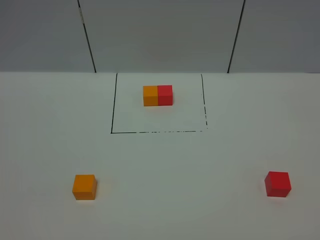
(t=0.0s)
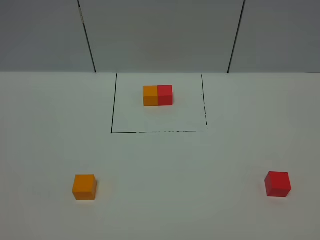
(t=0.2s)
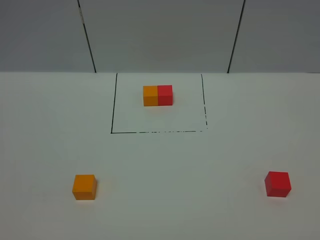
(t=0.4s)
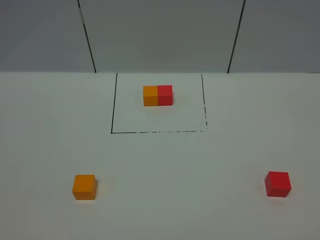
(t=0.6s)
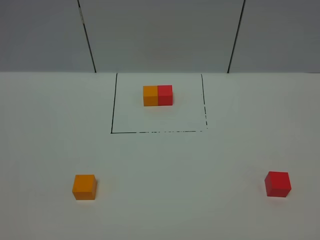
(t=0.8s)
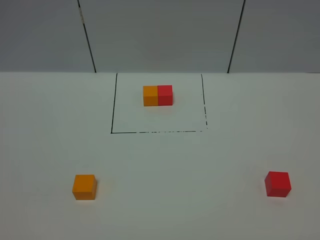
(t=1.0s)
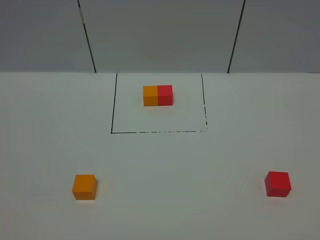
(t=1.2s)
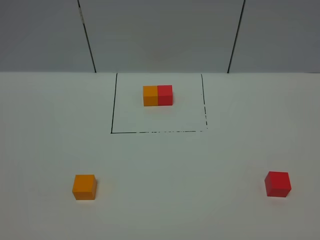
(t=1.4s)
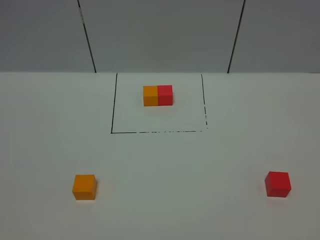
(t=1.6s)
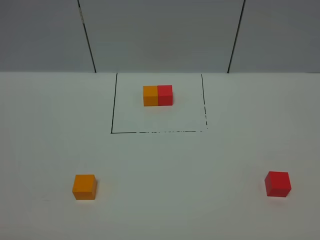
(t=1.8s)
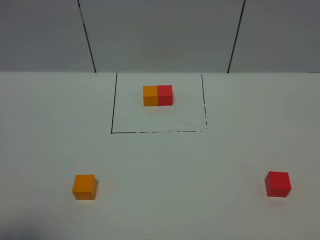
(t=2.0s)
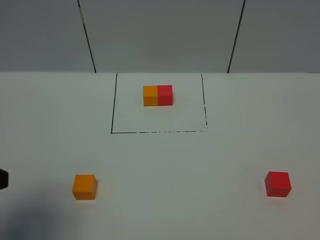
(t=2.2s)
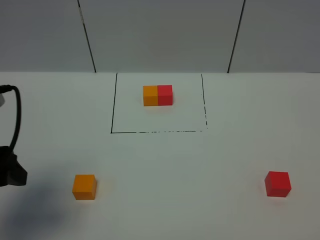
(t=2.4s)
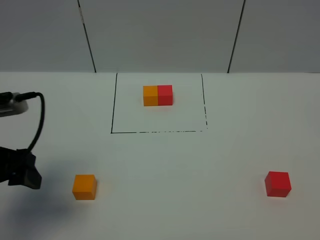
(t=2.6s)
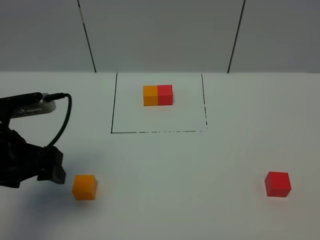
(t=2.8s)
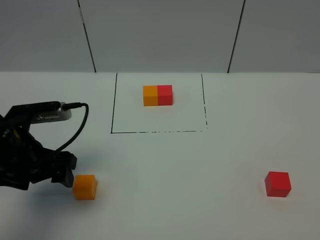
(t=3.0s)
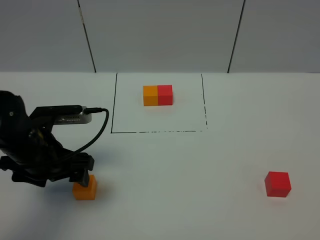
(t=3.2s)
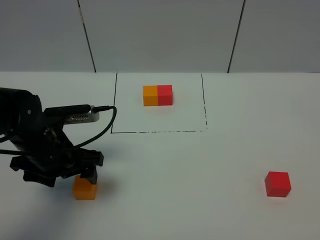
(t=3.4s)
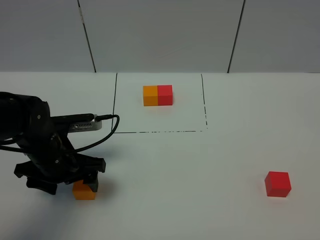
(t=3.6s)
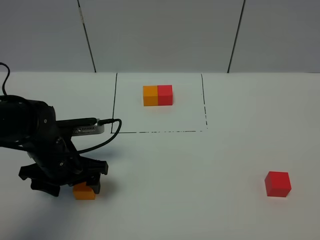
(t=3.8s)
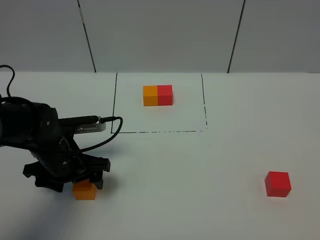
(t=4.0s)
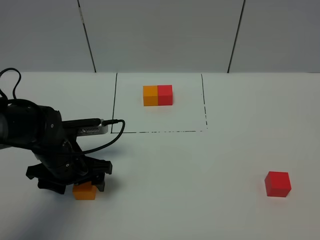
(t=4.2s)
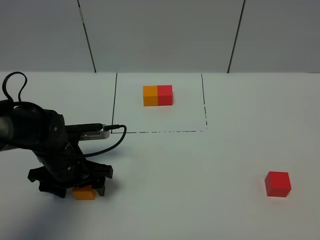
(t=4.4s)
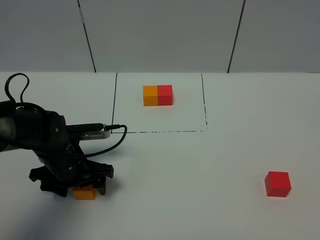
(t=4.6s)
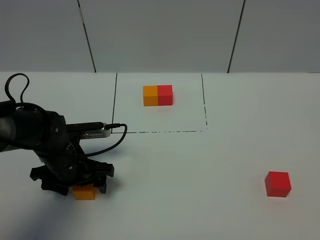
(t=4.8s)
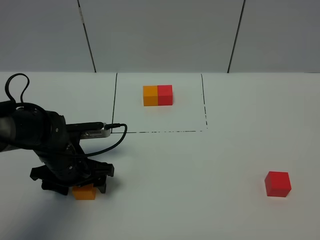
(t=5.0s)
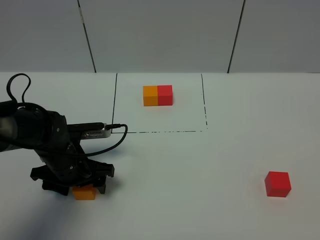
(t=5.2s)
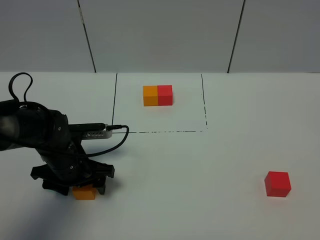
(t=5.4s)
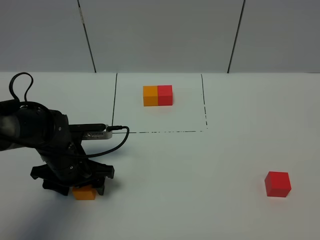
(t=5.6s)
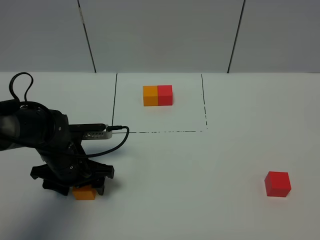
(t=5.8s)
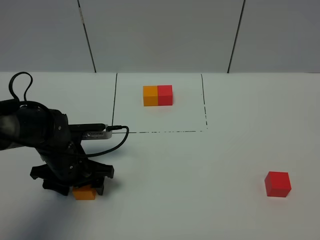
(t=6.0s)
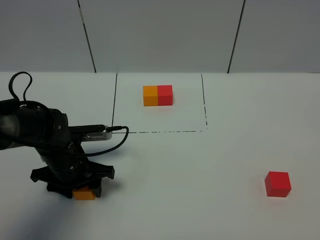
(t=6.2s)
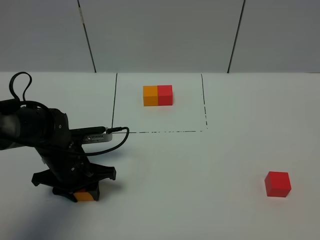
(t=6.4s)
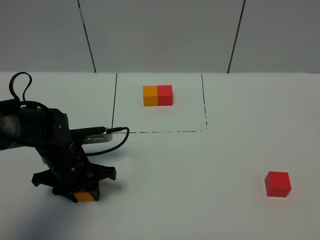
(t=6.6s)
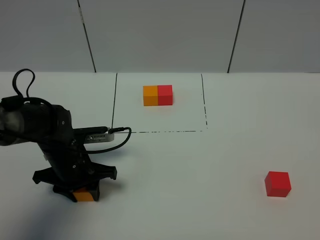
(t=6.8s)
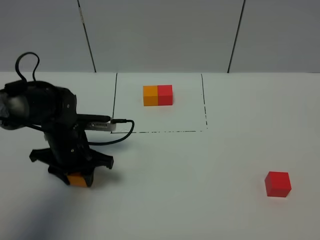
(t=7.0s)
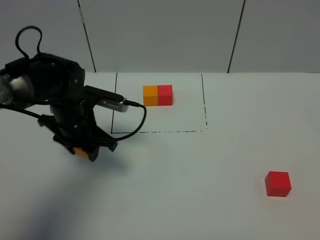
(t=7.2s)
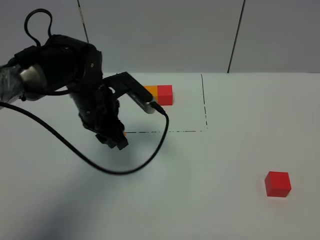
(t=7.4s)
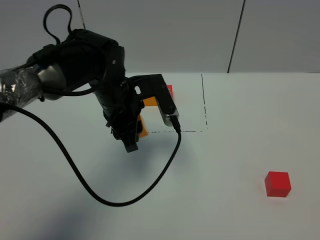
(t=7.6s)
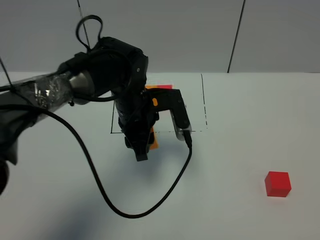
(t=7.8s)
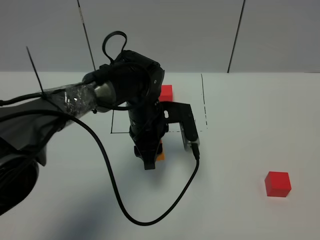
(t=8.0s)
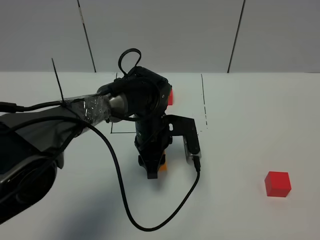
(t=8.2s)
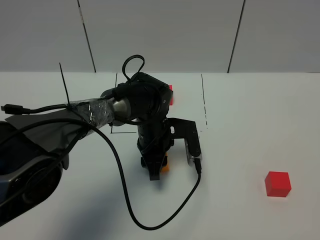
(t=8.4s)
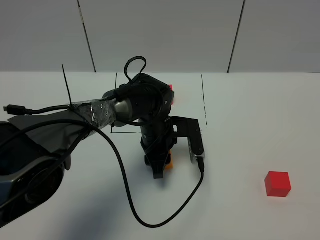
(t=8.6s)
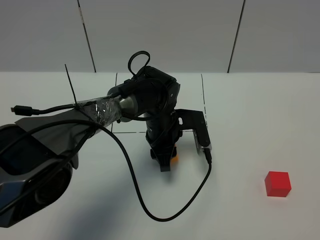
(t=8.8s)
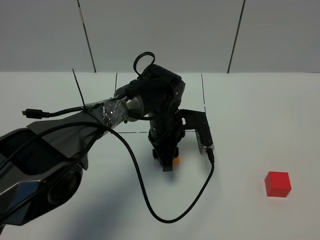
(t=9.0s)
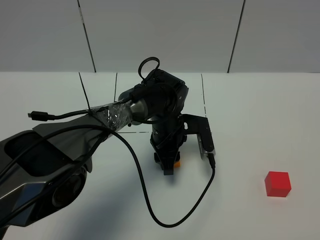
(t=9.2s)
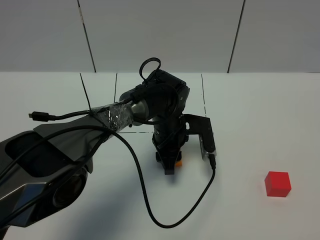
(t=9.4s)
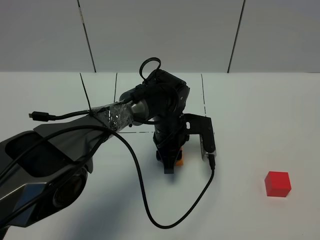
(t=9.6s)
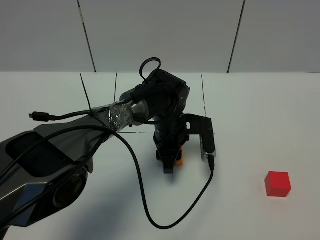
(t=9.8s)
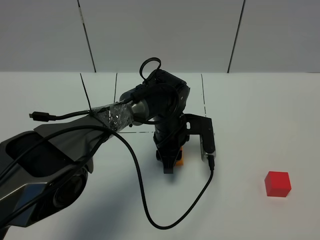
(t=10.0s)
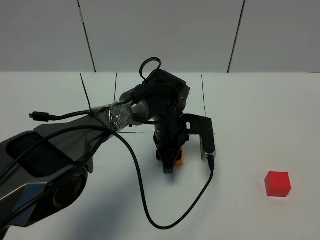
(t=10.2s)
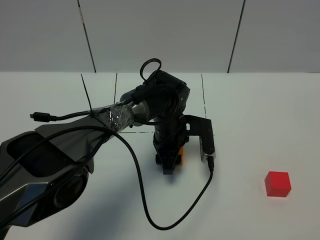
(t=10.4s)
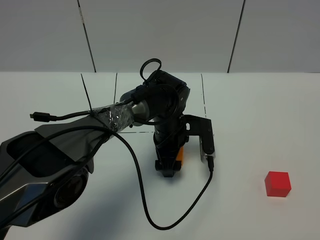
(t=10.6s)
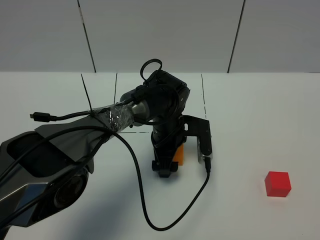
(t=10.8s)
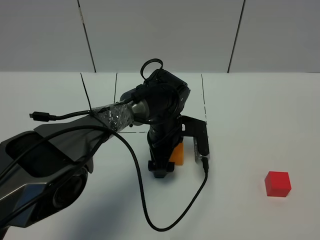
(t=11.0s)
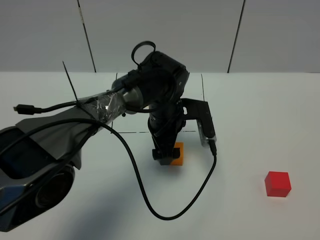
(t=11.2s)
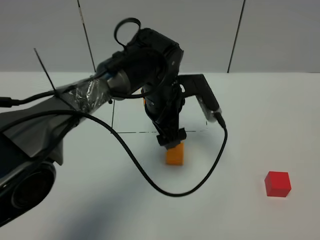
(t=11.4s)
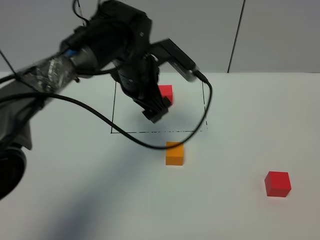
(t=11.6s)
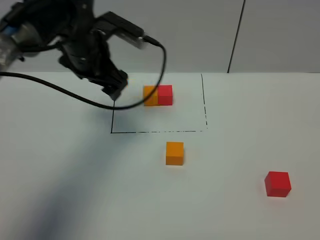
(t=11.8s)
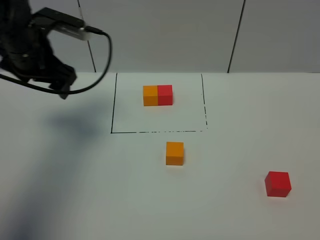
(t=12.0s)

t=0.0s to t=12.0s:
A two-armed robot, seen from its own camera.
Task of the whole recording: According to the building block template in front, assemble the scattered blocks together.
Step, t=2.2s to t=10.4s: Put the orange cube in the center of the table.
t=0.0s to t=1.6s: Neither gripper changes place.
t=1.6s to t=3.0s: The left gripper shifts roughly 25 cm forward.
t=3.0s to t=4.4s: The left gripper heads downward, covering some 10 cm.
t=4.4s to t=6.0s: Both grippers stay put.
t=6.0s to t=7.6s: The left gripper travels to the right, upward and forward by roughly 15 cm, and closes up.
t=7.6s to t=9.0s: The left gripper is displaced downward and to the right by about 15 cm.
t=9.0s to t=10.4s: The grippers move only a little.
t=10.4s to t=12.0s: The left gripper shifts roughly 30 cm to the left and upward, and opens its fingers.

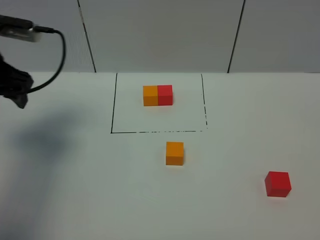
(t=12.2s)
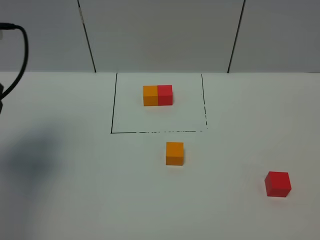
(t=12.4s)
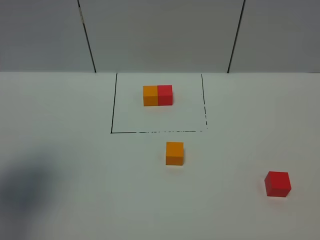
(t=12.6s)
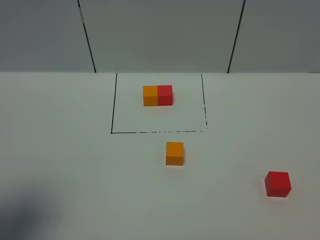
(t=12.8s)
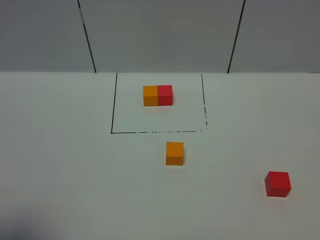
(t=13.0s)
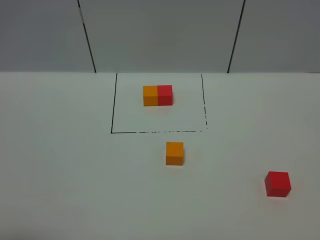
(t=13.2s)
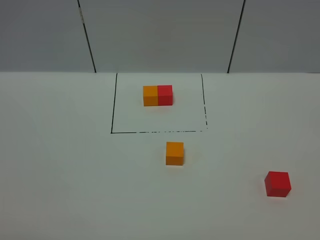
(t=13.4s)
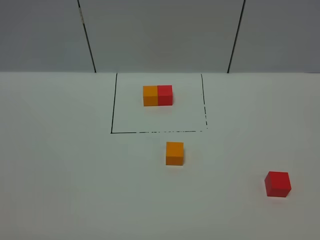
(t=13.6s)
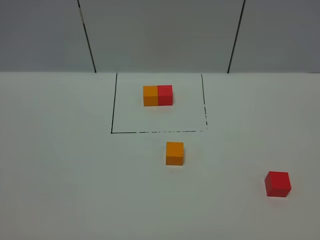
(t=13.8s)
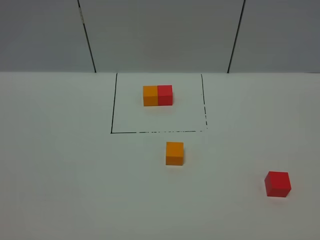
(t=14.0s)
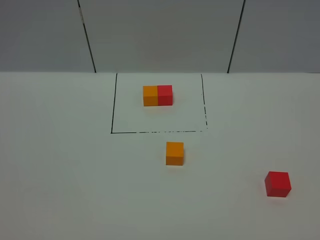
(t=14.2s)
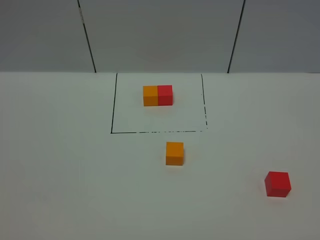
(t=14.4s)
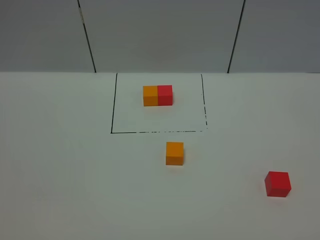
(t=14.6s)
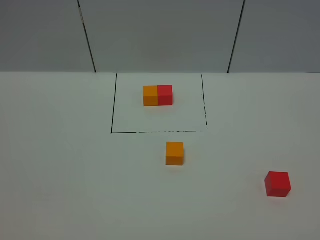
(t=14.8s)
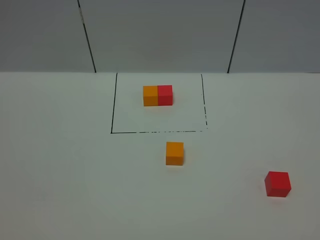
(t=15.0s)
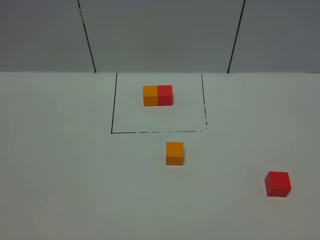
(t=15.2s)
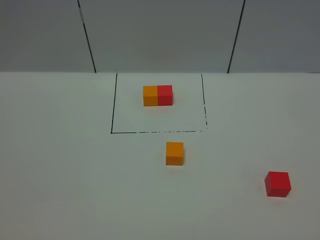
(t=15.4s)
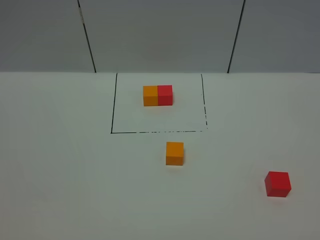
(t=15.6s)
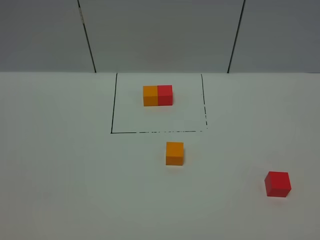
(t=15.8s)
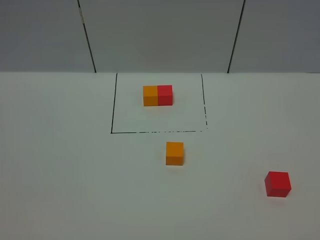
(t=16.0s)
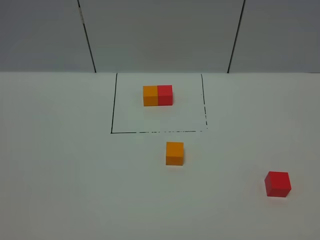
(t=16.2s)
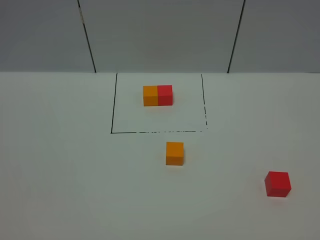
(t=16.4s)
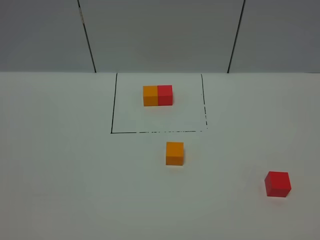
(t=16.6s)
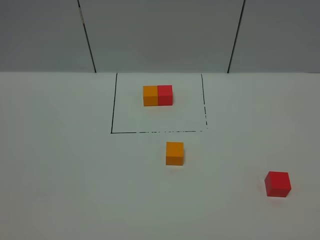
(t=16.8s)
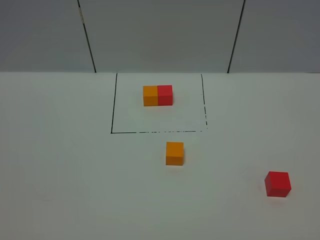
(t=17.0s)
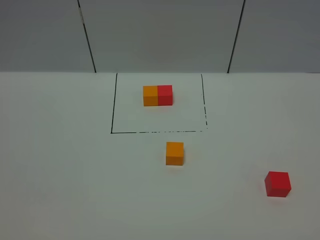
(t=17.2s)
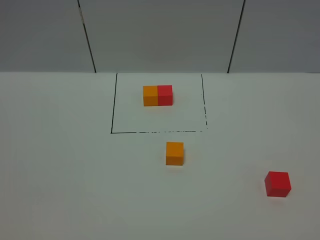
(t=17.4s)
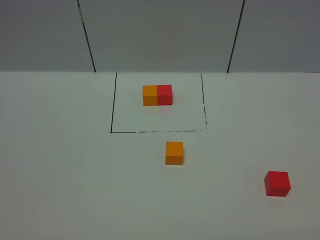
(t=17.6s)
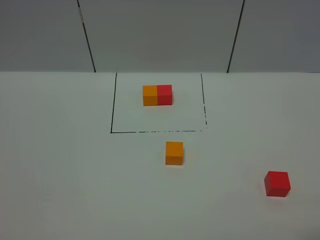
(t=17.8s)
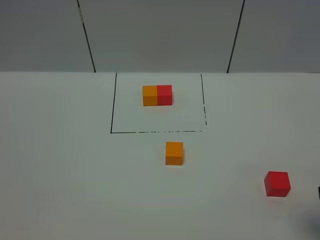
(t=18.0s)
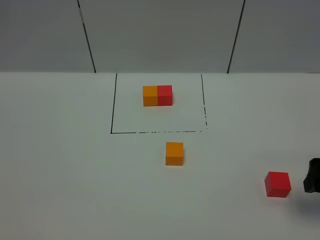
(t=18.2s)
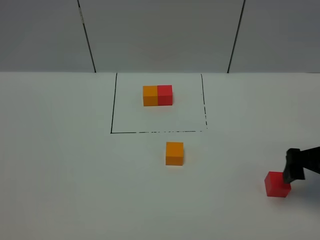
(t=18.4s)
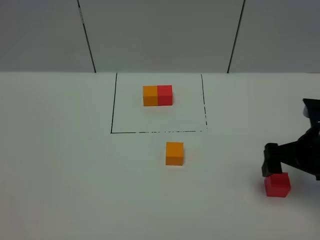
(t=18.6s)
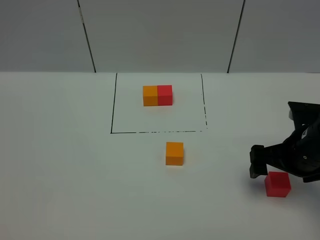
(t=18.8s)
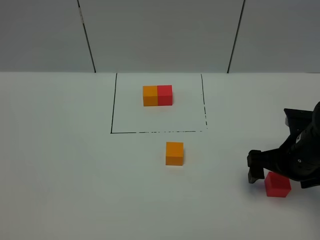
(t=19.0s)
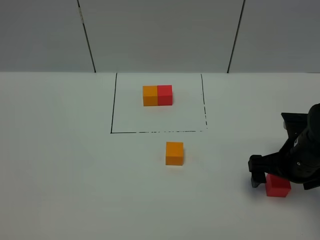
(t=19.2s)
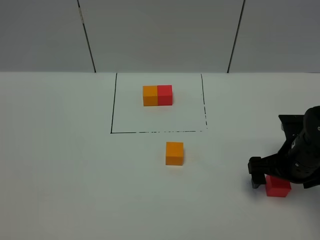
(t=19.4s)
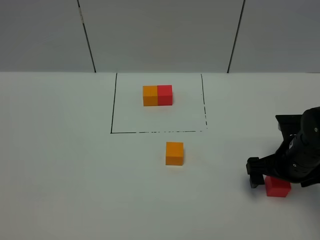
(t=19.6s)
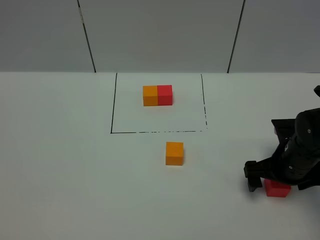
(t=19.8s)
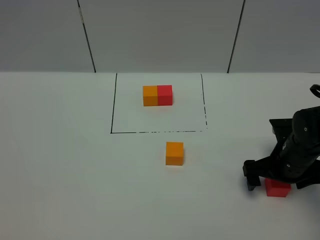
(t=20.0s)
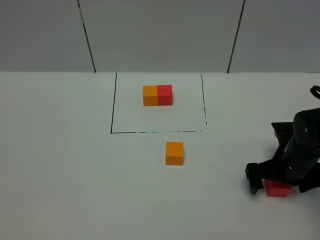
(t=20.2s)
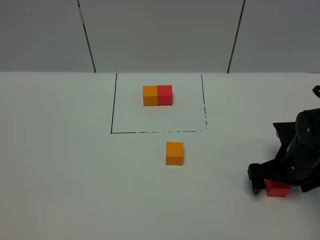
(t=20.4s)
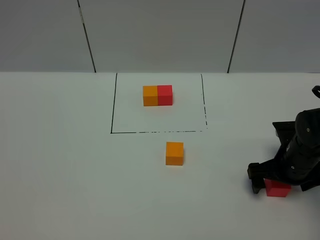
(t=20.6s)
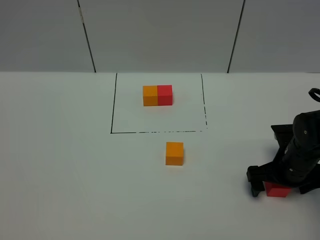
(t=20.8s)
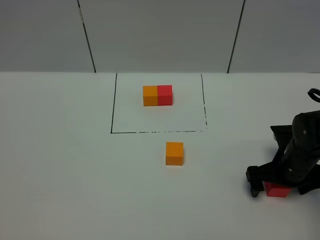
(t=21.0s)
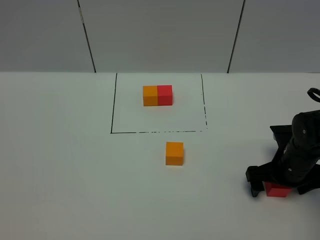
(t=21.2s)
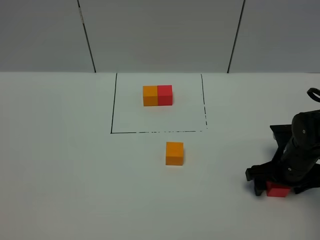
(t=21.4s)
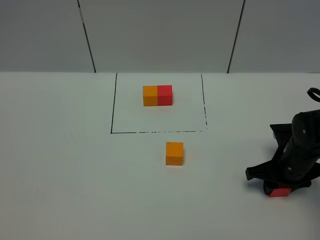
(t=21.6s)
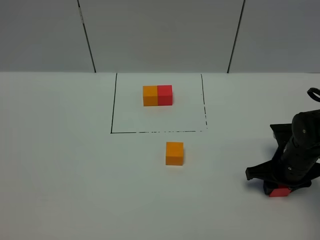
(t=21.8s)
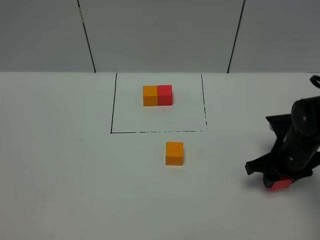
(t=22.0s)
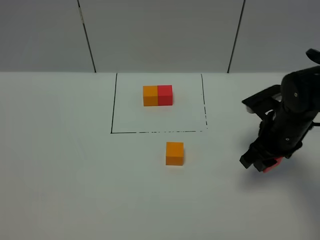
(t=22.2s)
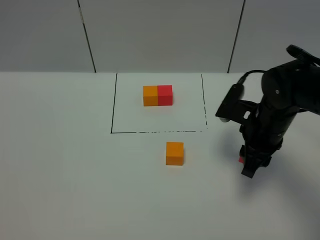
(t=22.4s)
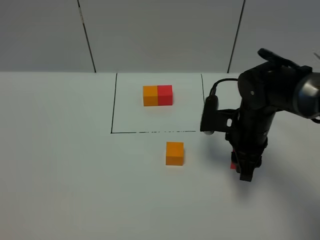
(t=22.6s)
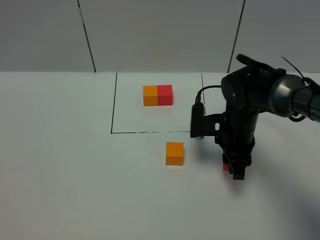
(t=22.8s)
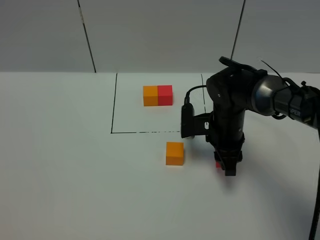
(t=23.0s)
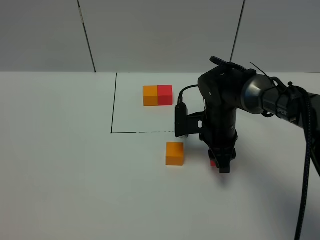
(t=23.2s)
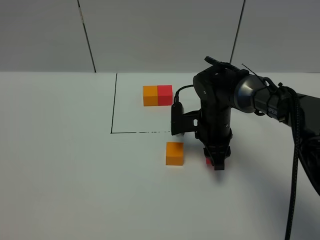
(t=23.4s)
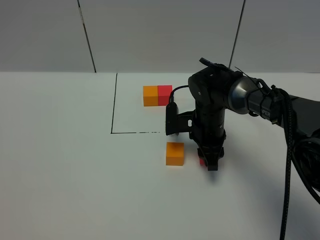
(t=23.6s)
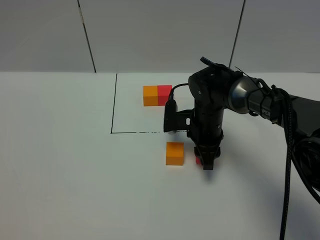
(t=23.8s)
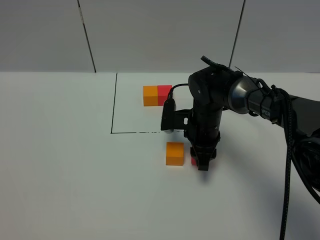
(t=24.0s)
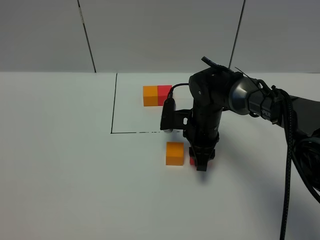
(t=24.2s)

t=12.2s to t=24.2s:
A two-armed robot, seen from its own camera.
Task of the whole recording: According to the building block template in front, assemble the scattered blocks together.
t=12.2s to t=13.8s: The left gripper shifts some 35 cm backward.
t=15.2s to t=16.6s: Both grippers stay about where they are.
t=16.6s to t=18.2s: The right gripper shifts roughly 25 cm forward.
t=18.2s to t=19.8s: The right gripper is displaced downward, forward and to the left by about 15 cm.
t=19.8s to t=21.2s: The grippers stay close to where they were, moving slightly.
t=21.2s to t=22.6s: The right gripper heads to the left and upward, covering approximately 10 cm, and closes up.
t=22.6s to t=24.2s: The right gripper moves to the left, downward and forward, roughly 10 cm.
